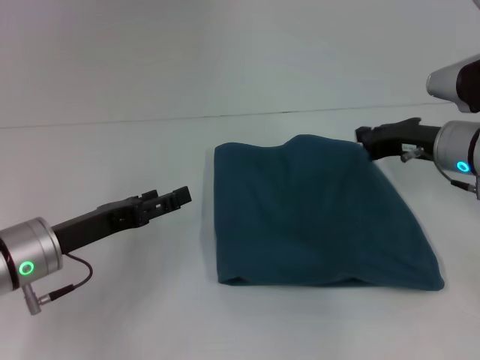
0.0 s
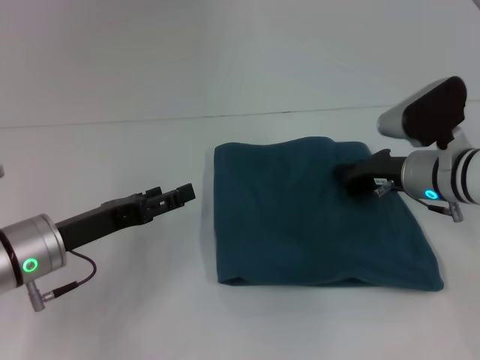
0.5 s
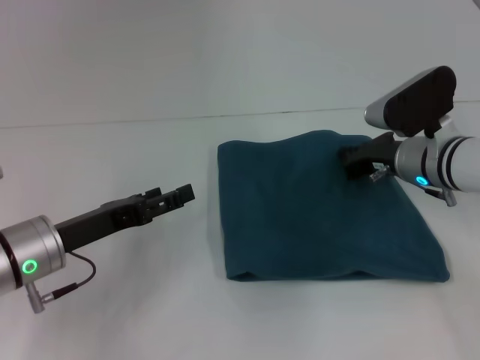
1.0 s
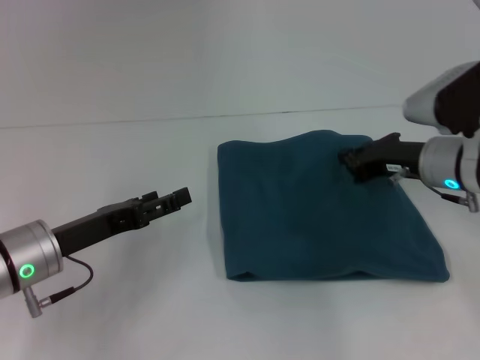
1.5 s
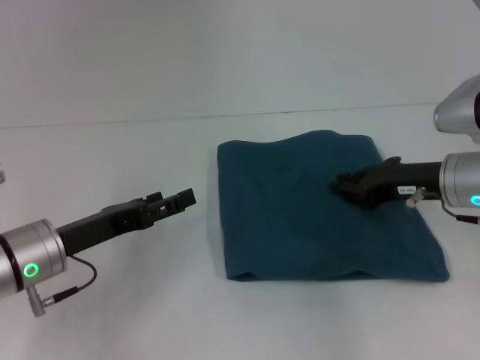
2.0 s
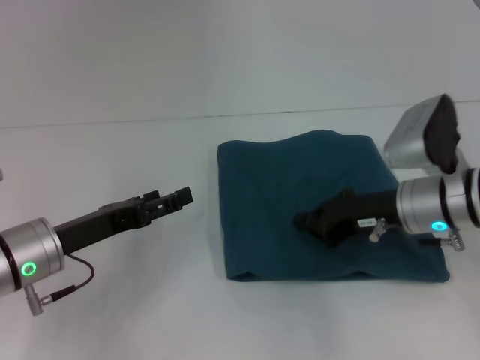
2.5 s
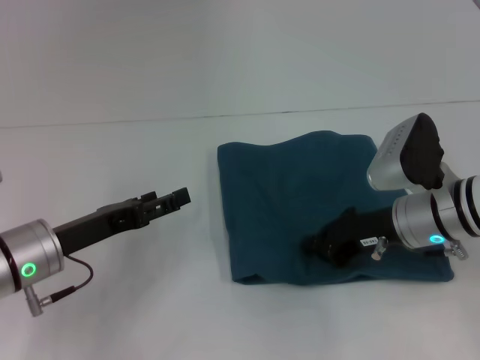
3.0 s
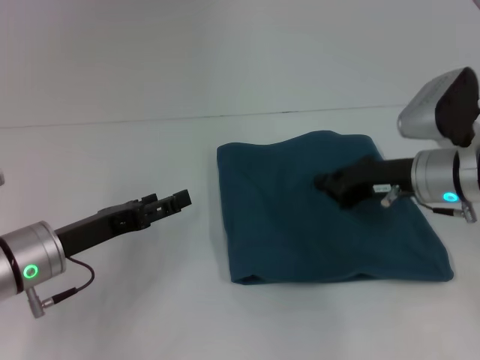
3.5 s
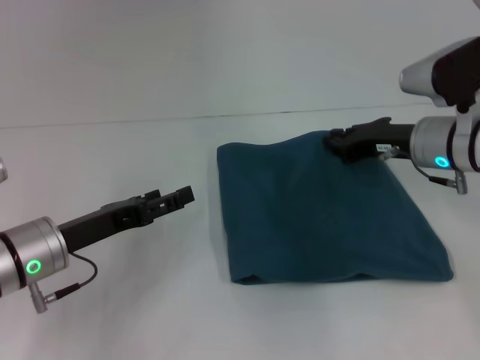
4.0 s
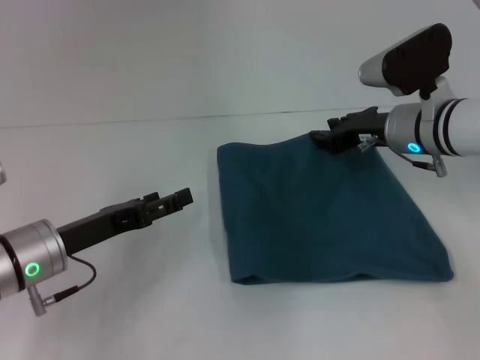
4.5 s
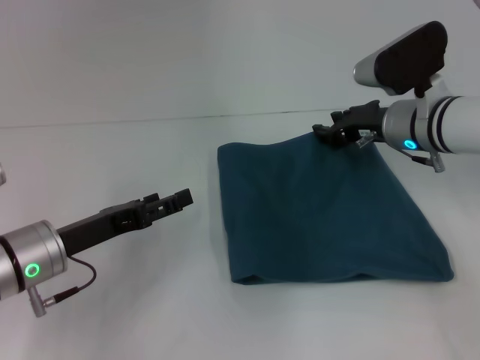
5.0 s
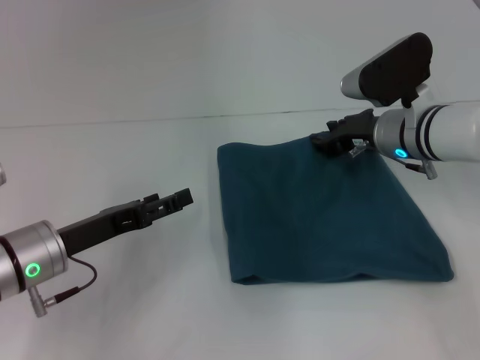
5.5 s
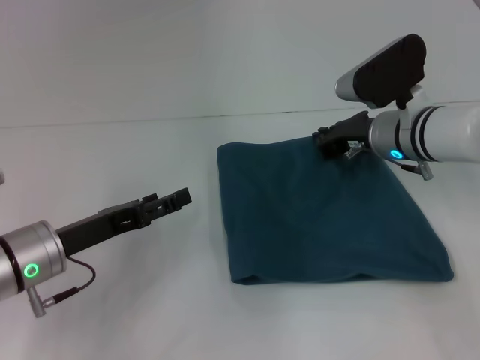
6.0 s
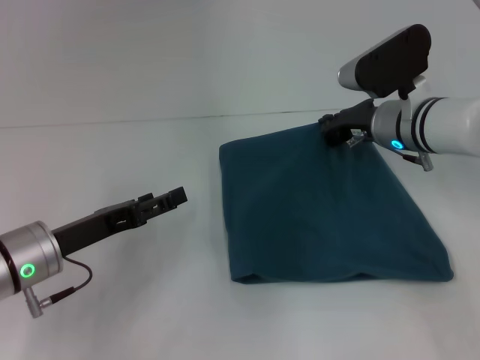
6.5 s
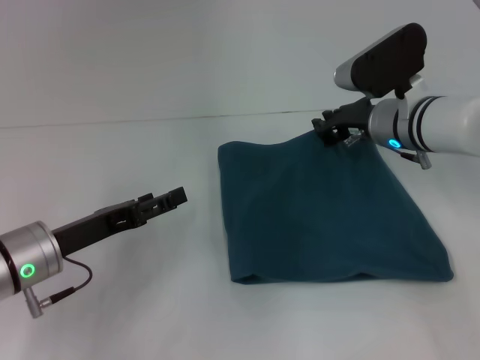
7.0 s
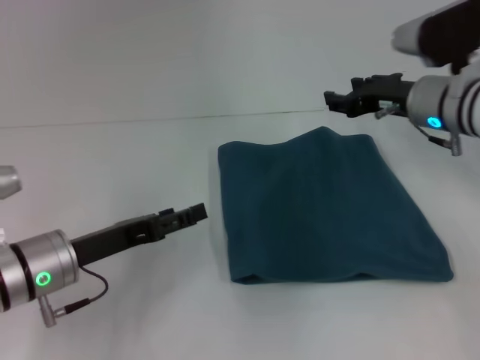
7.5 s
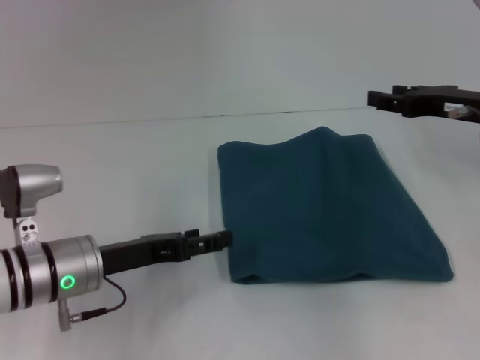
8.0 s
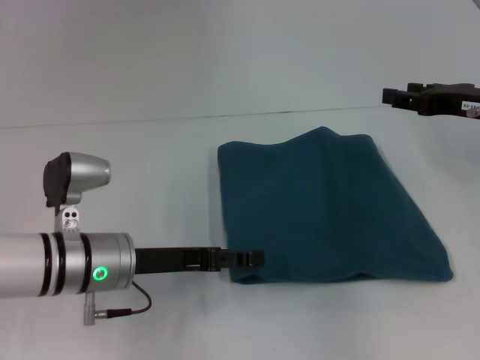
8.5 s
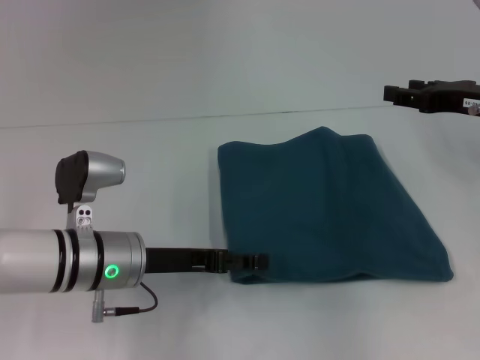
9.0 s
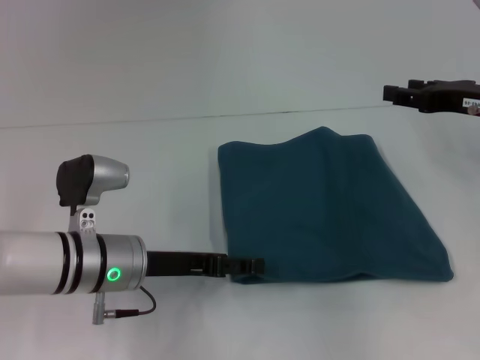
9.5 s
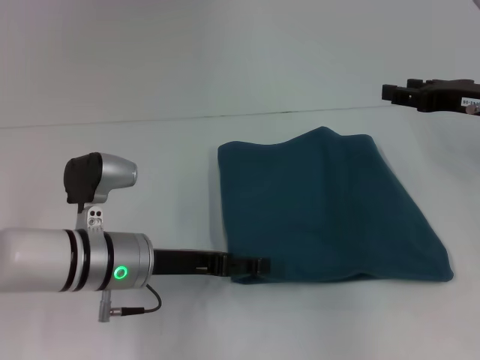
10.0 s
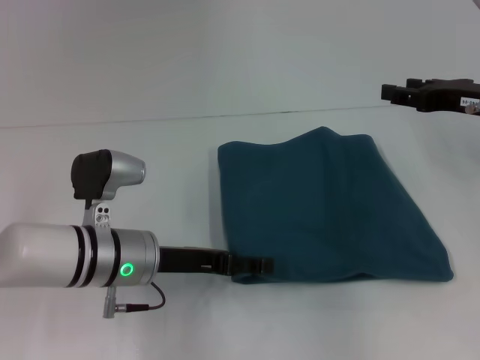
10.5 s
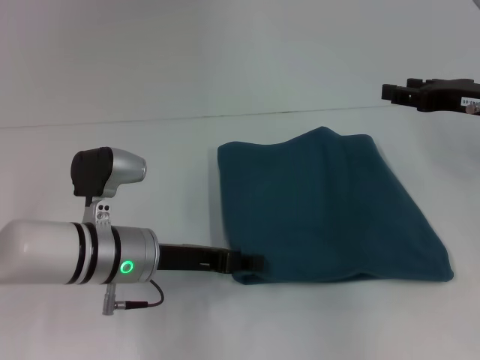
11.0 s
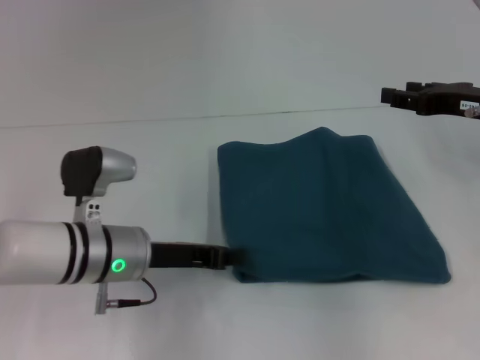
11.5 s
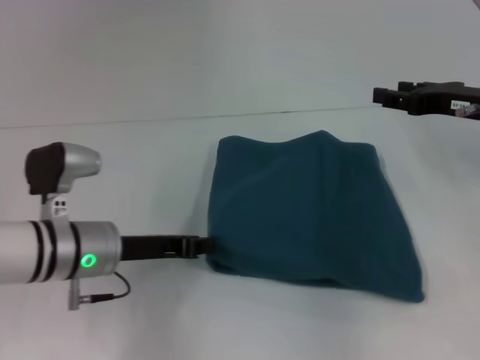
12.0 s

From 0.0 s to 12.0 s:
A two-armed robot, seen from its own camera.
From 0.0 s to 2.0 s: There are only small adjustments of the grippers.
From 2.0 s to 4.0 s: The grippers stay close to where they were, moving slightly.
From 4.0 s to 6.0 s: The right gripper moves some 5 cm.
From 6.0 s to 8.0 s: The right gripper heads to the right, covering some 10 cm, and opens.
From 8.0 s to 10.0 s: The left gripper ends up some 5 cm from where it was.
From 10.0 s to 12.0 s: The left gripper closes its fingers.

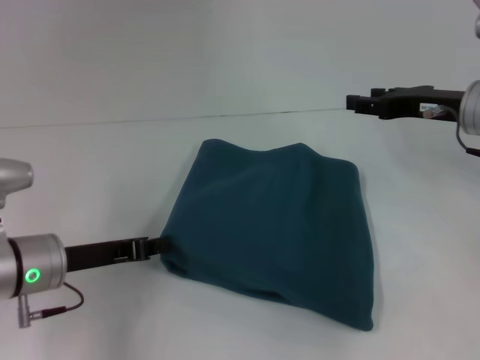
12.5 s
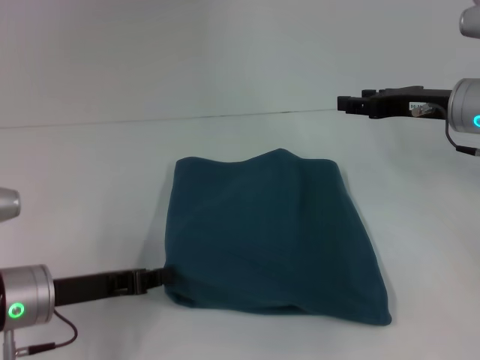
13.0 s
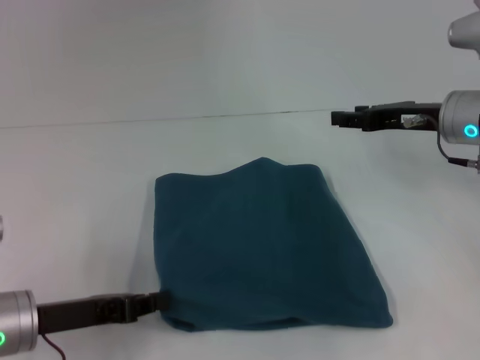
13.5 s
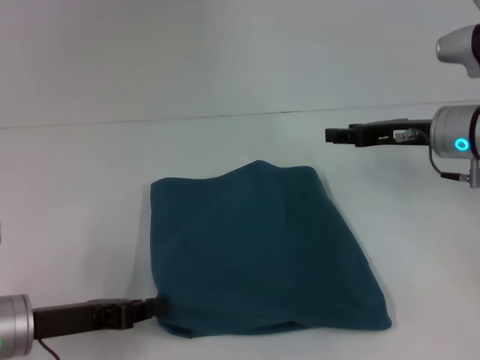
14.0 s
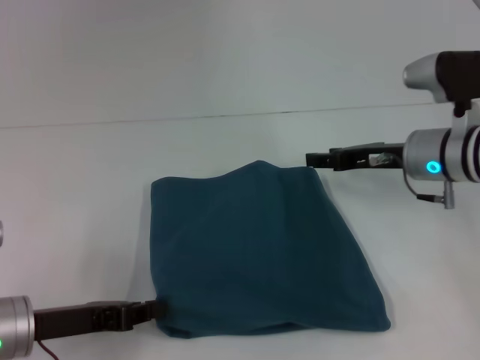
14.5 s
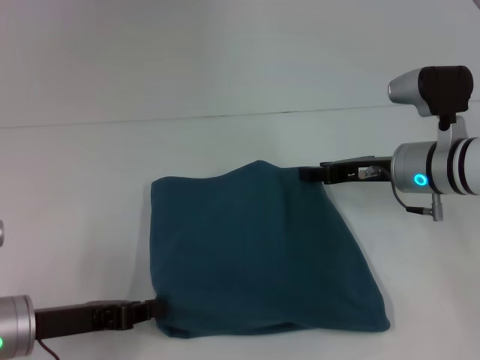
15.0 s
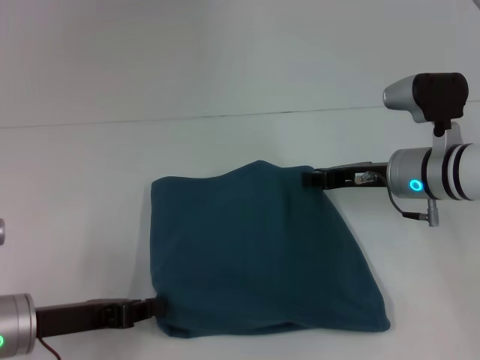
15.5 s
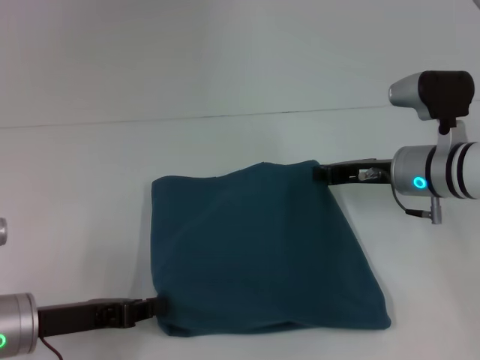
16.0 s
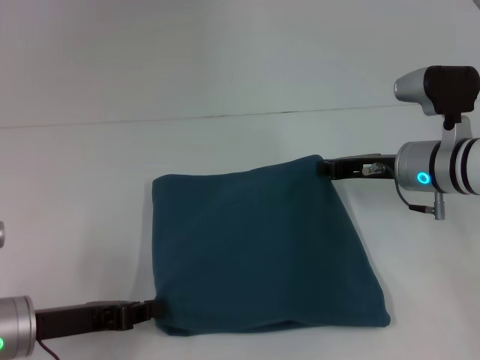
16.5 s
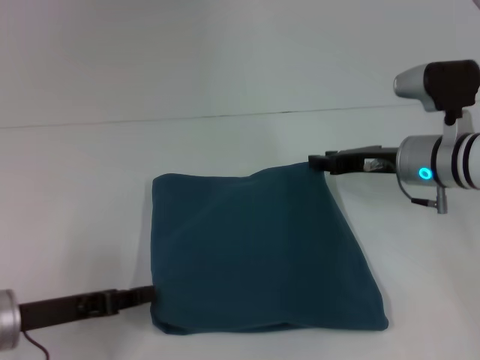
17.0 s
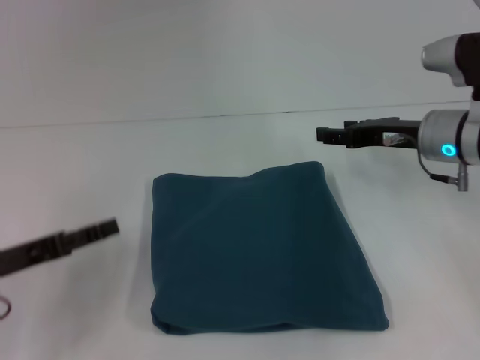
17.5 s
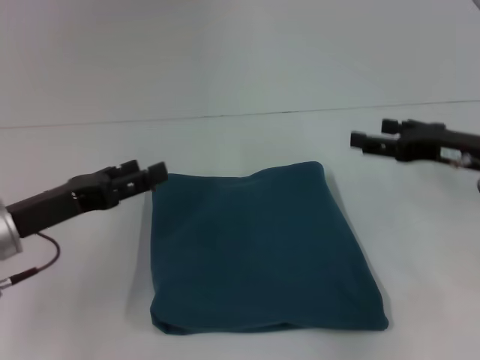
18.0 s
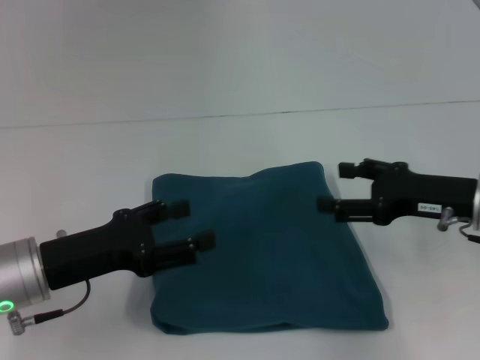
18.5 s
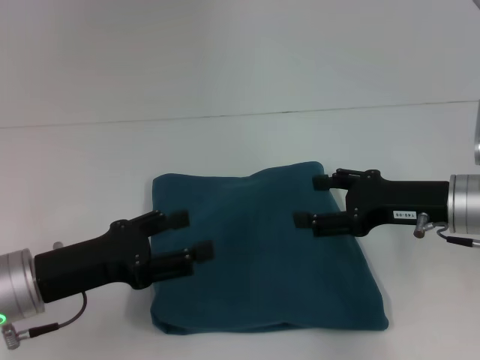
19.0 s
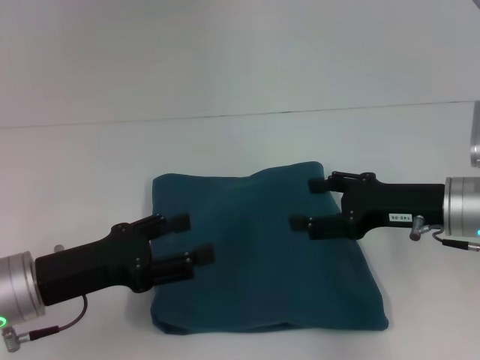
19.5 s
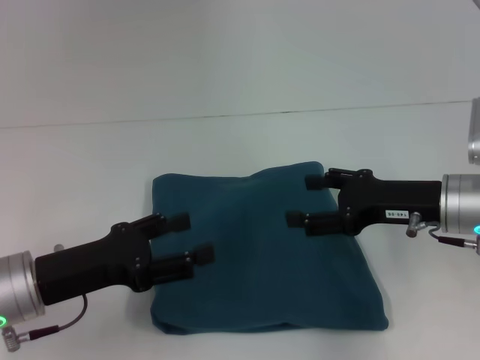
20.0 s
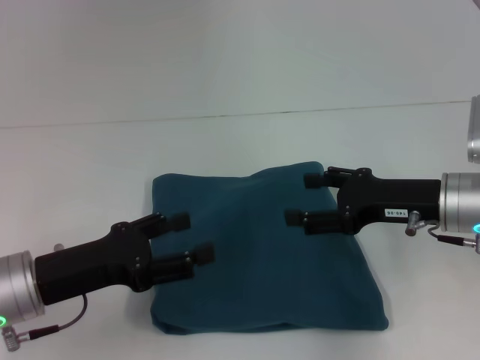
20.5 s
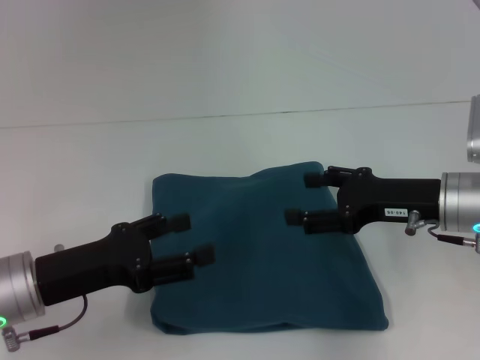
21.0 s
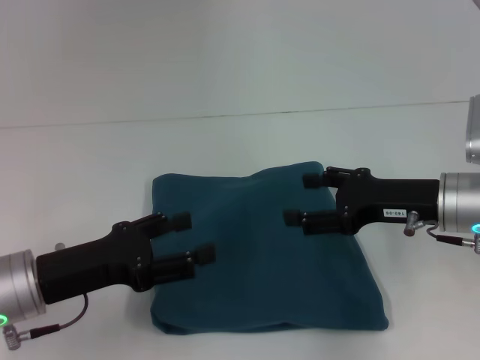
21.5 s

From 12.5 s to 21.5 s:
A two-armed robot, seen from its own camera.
From 12.5 s to 14.5 s: The right gripper changes place by approximately 5 cm. Meanwhile the left gripper moves backward, some 5 cm.
From 14.5 s to 17.0 s: The right gripper closes its fingers.
From 17.0 s to 19.5 s: The left gripper opens, while the right gripper goes about 5 cm backward, and opens.
From 19.5 s to 21.5 s: Neither gripper changes place.

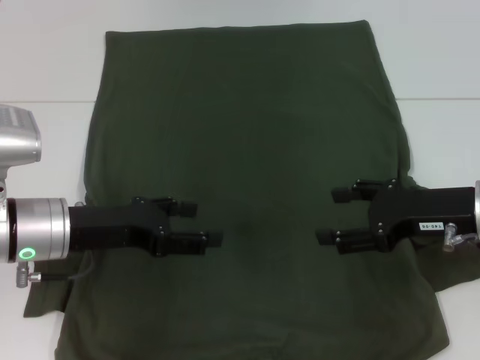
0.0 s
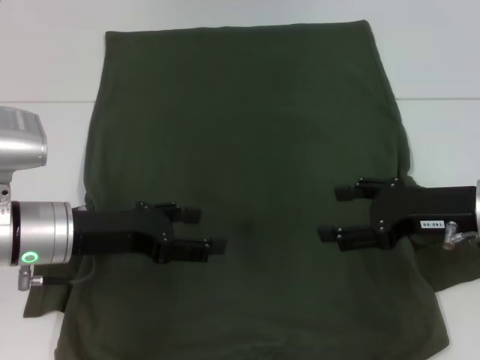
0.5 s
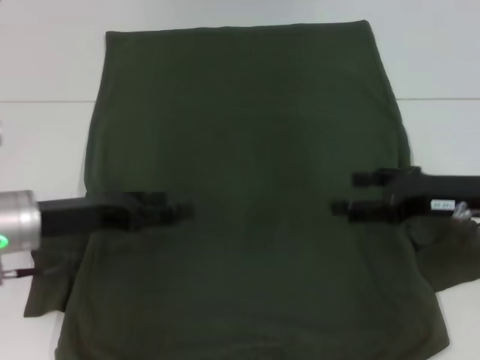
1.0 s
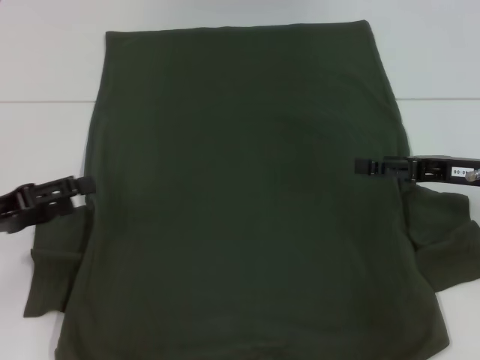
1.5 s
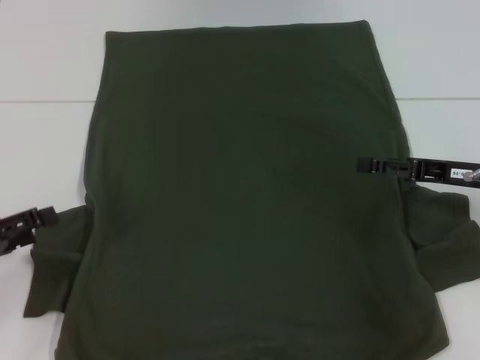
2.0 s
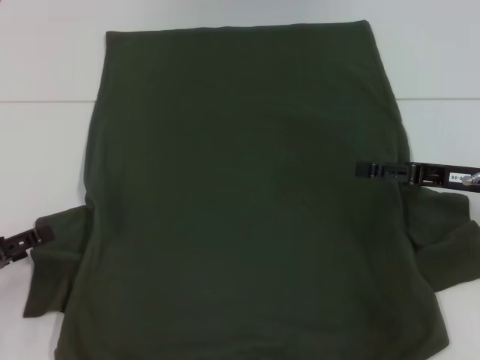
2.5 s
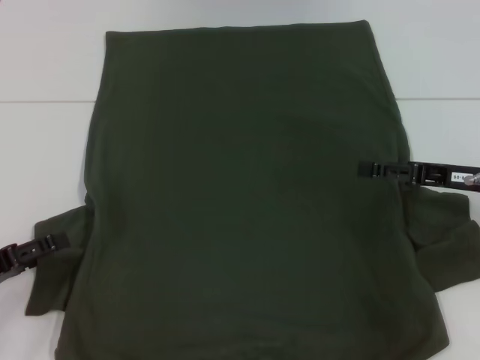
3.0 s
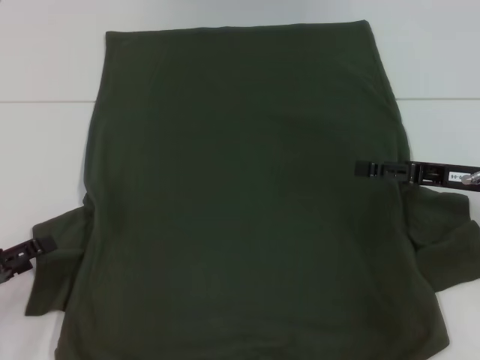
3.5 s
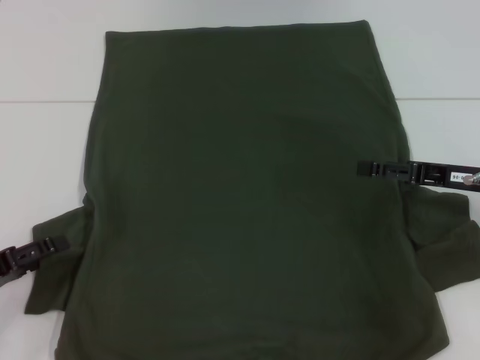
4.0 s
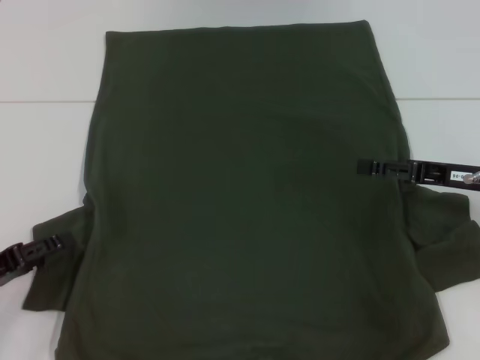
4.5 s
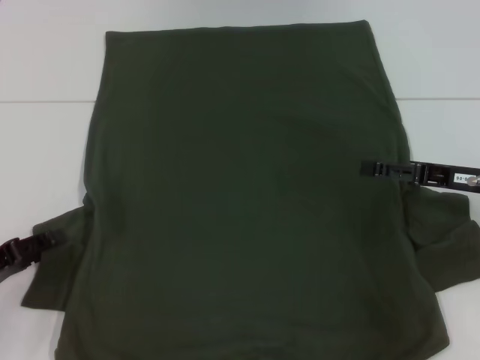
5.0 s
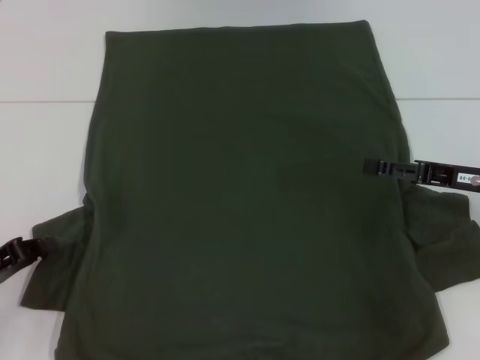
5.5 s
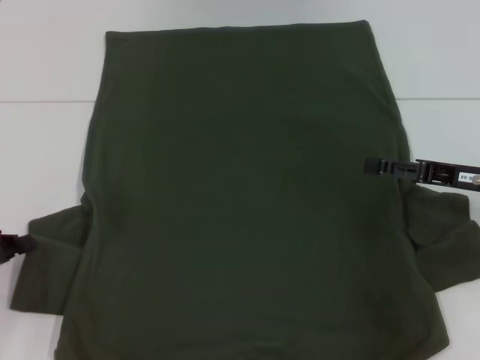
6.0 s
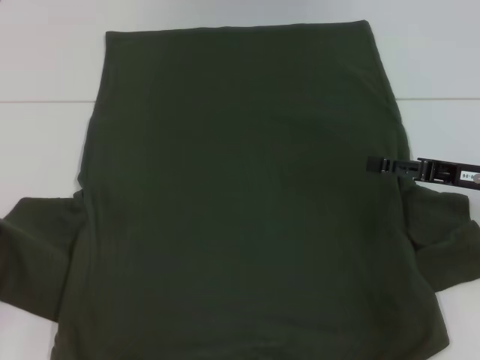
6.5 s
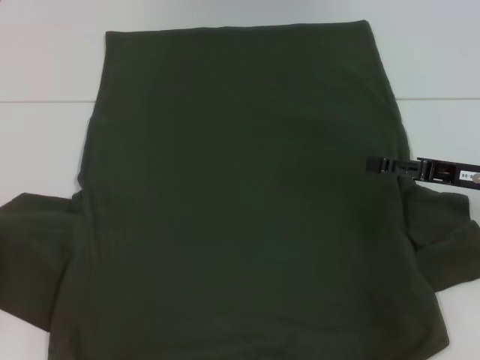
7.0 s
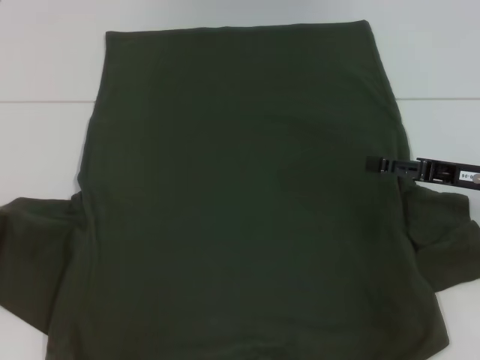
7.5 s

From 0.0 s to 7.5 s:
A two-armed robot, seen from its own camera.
From 0.0 s to 2.0 s: The left gripper heads to the left and backward, covering approximately 15 cm.
From 2.0 s to 4.0 s: The grippers make only small movements.
From 4.0 s to 5.5 s: The left gripper closes.
From 5.5 s to 7.5 s: The left gripper moves upward and to the left, roughly 10 cm.
